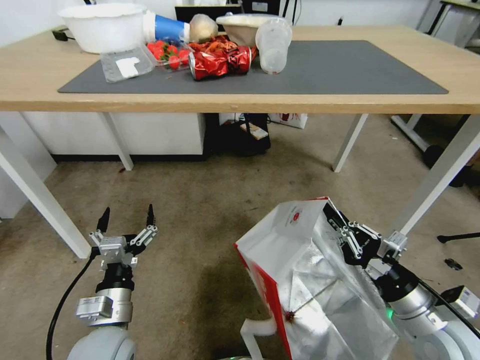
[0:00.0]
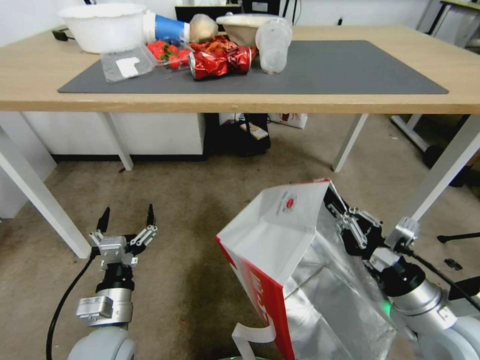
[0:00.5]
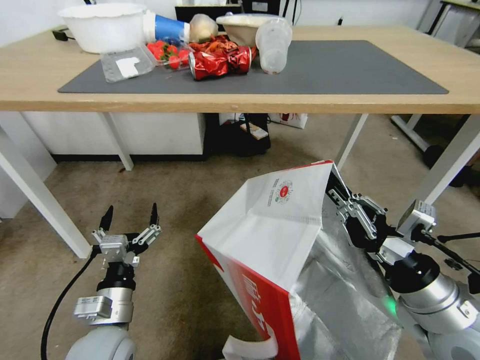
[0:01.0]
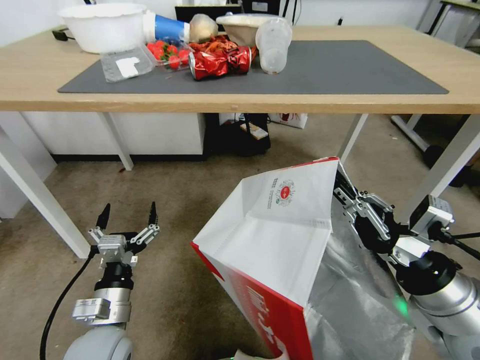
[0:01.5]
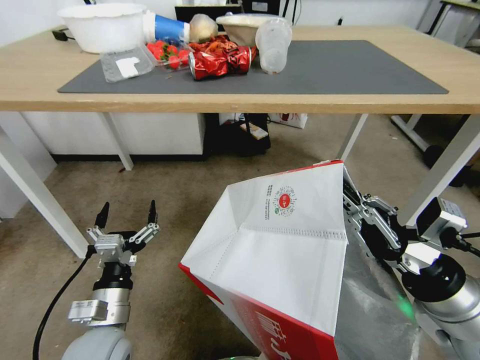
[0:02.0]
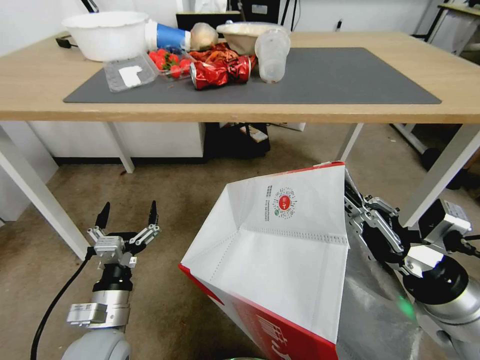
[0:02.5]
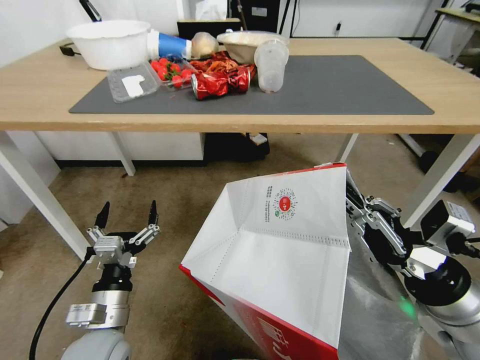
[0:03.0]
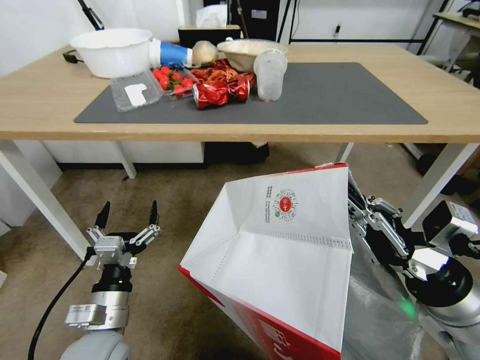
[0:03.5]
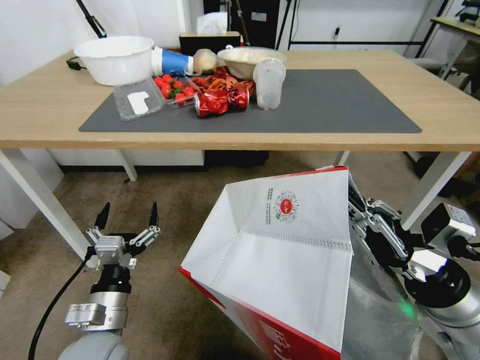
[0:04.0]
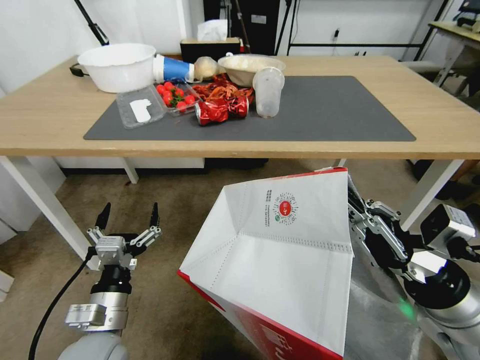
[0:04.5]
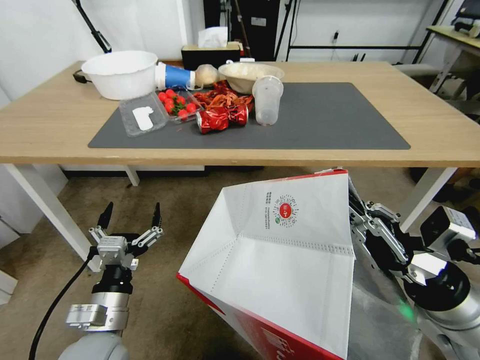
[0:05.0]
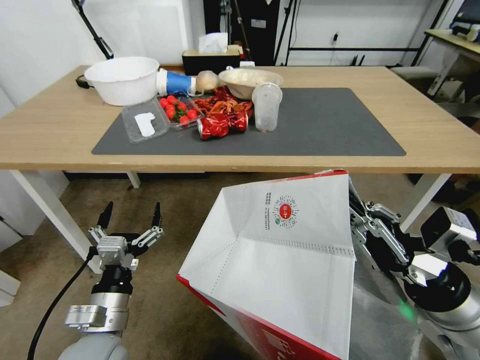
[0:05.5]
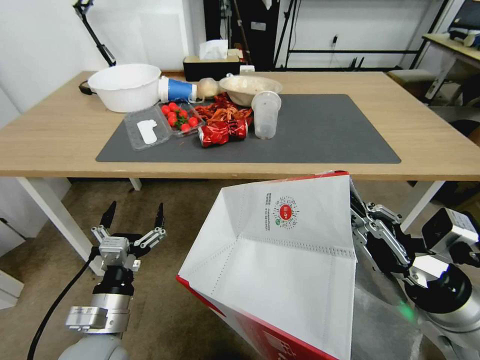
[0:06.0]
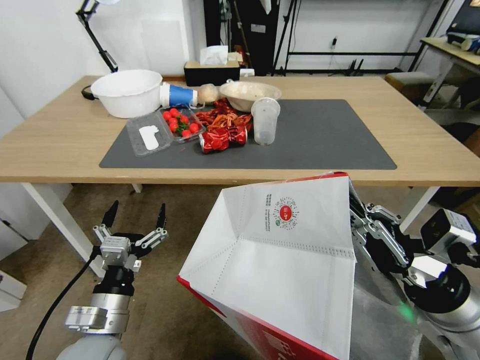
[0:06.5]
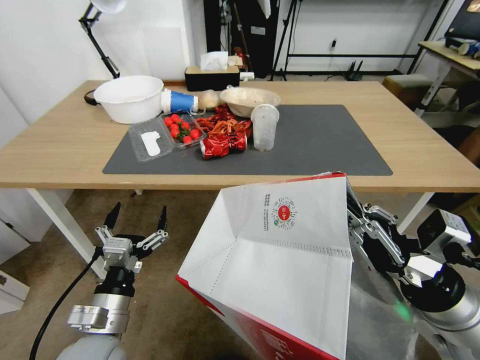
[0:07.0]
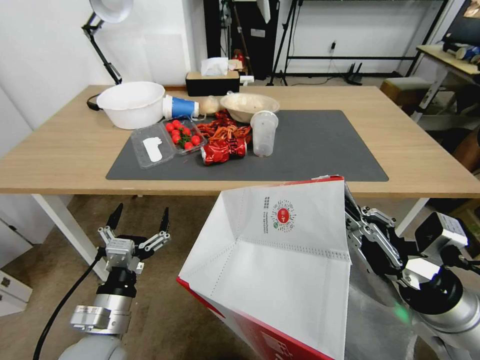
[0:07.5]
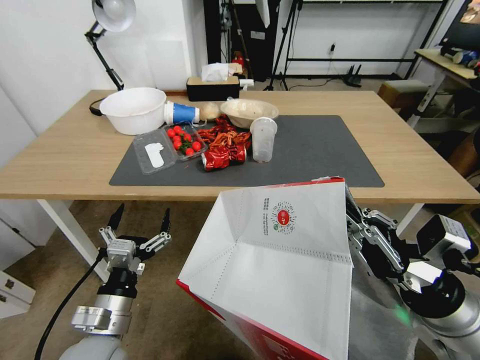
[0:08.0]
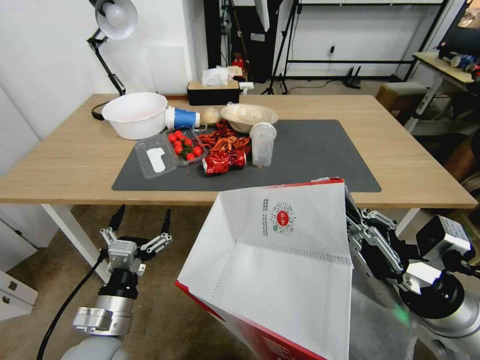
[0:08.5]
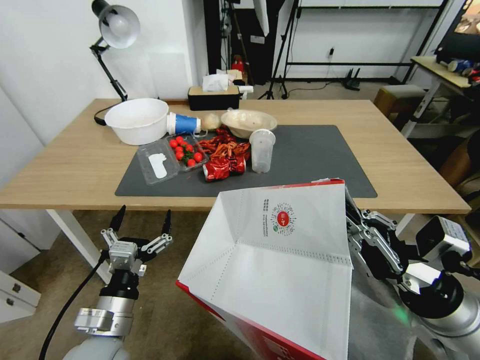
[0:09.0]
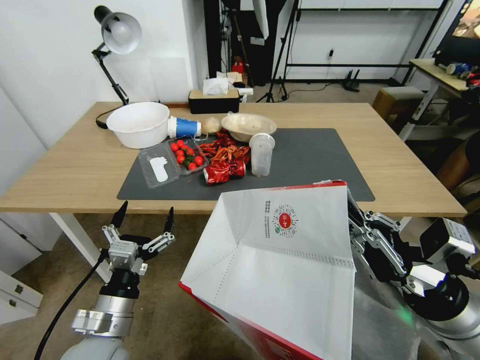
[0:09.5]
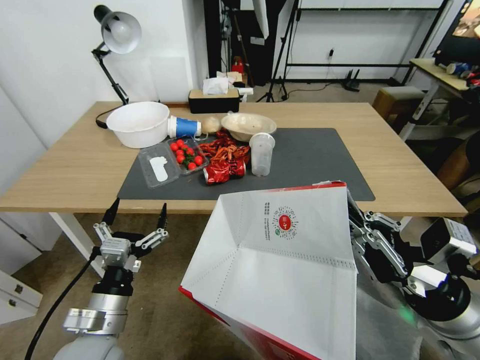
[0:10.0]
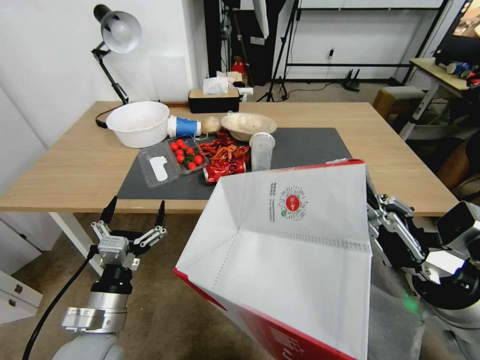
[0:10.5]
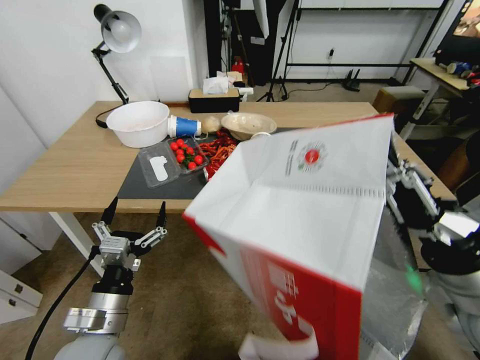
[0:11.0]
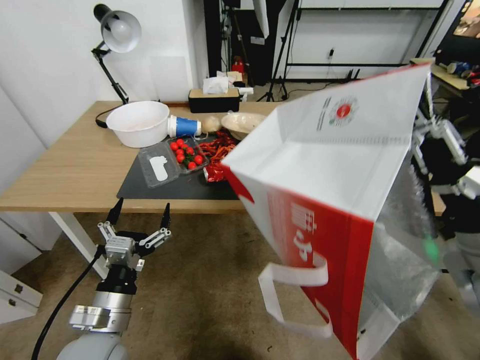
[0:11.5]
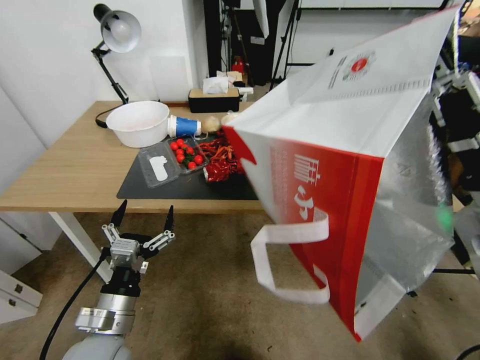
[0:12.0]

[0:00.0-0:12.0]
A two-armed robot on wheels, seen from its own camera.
Task of the whole recording: Pick up the food delivery bag from the floor and place it on the table.
0:00.0 to 0:02.0: The right gripper moves upward, about 10 cm.
0:10.0 to 0:12.0: The right gripper shifts some 15 cm upward and forward.

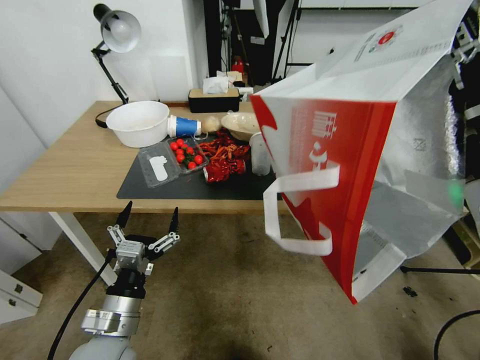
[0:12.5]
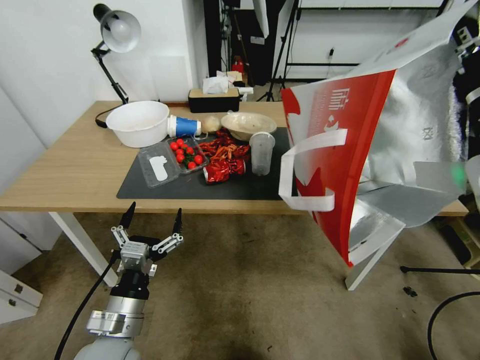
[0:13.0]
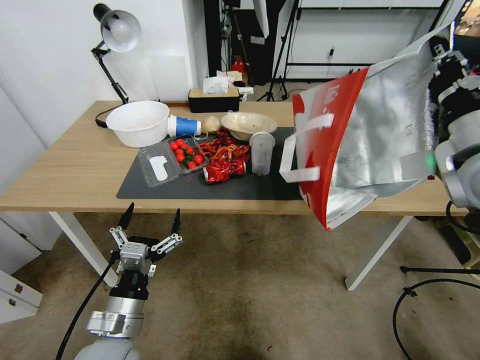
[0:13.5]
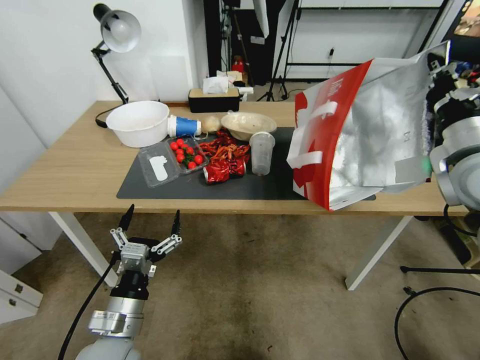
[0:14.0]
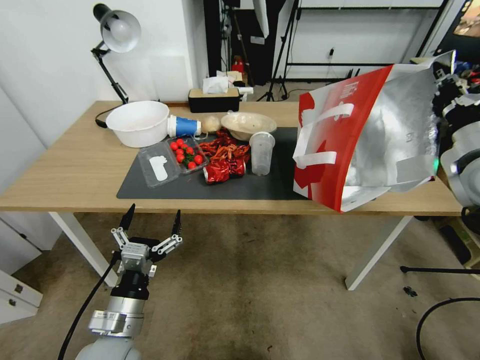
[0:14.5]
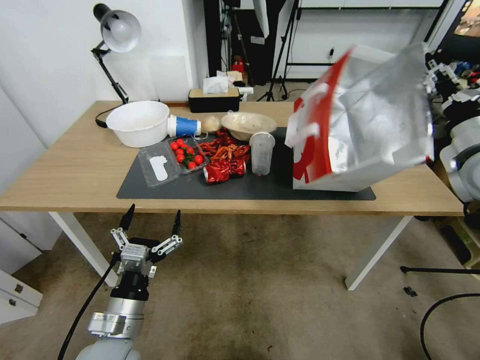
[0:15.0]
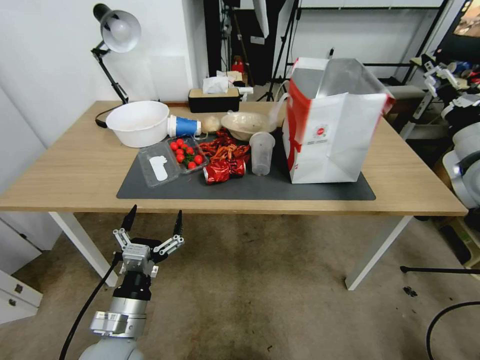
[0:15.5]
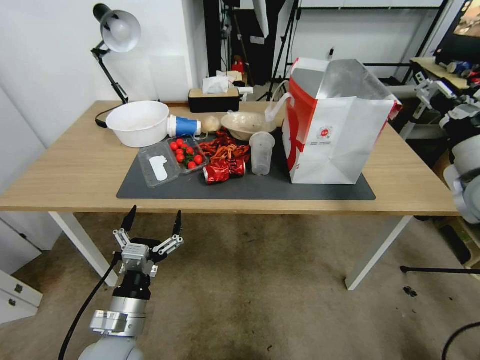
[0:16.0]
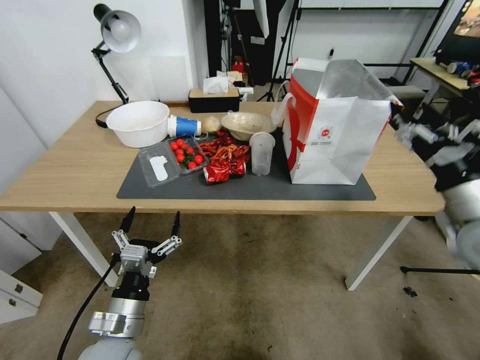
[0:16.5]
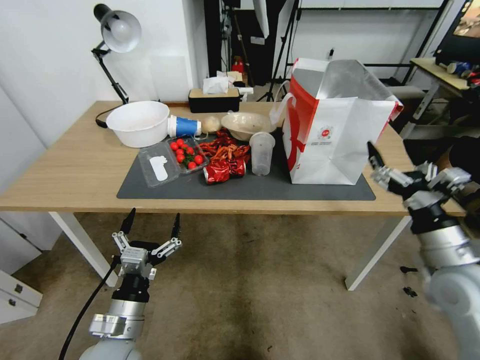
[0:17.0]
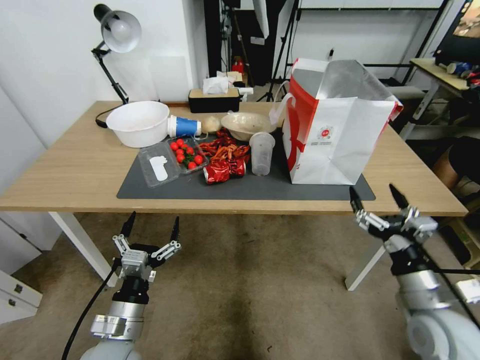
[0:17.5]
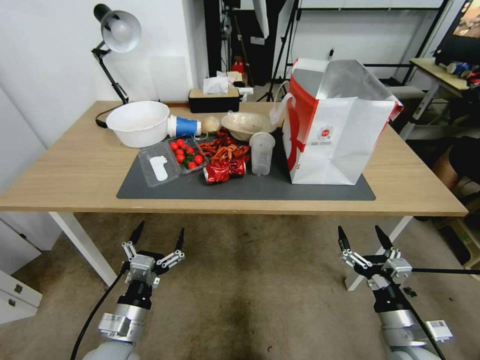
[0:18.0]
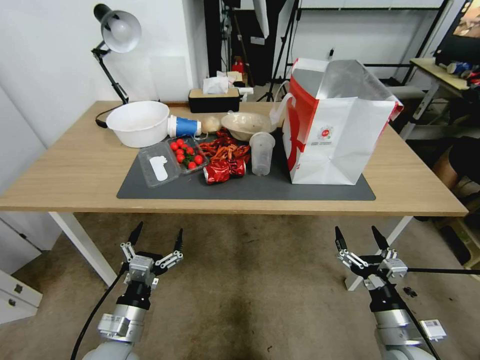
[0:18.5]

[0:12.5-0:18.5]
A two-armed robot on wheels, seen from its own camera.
Task of the whole recording: Pick up the food delivery bag from the floor and place it on the table.
0:12.5 to 0:14.5: The right gripper is displaced forward and to the right by about 15 cm.
0:14.5 to 0:16.5: The right gripper travels backward and downward by about 10 cm, and opens up.
0:16.5 to 0:18.5: The right gripper travels downward and backward by some 25 cm. Meanwhile the left gripper ends up about 5 cm from where it was.

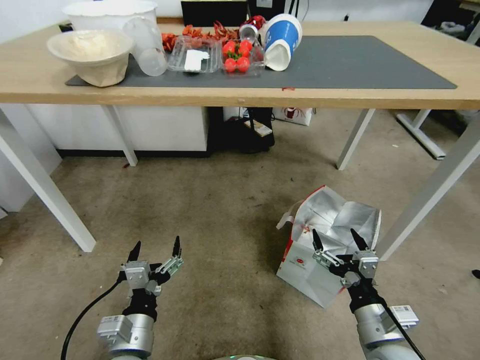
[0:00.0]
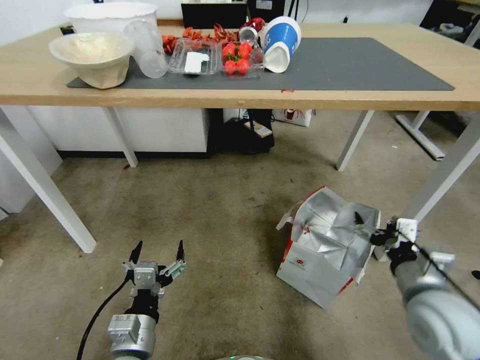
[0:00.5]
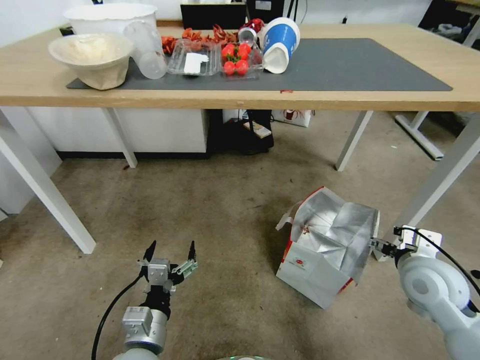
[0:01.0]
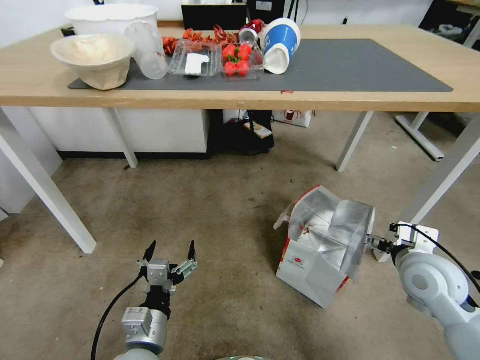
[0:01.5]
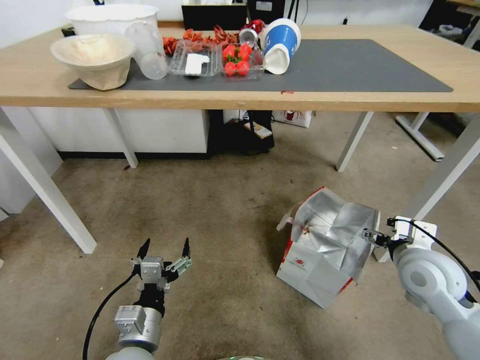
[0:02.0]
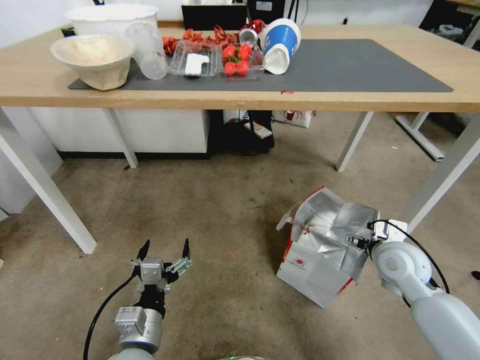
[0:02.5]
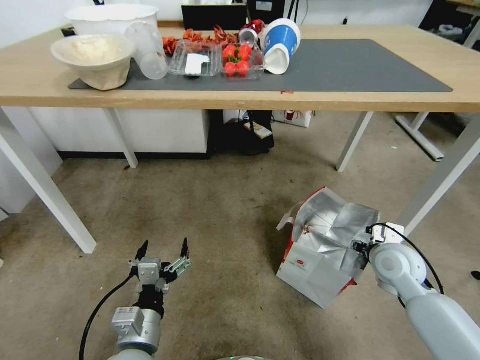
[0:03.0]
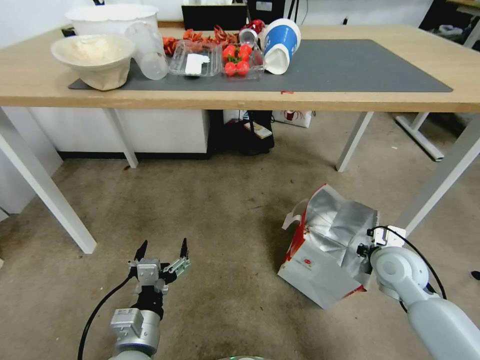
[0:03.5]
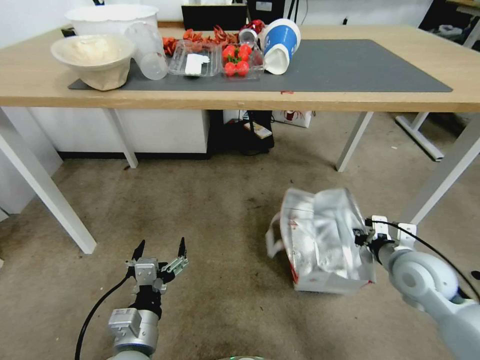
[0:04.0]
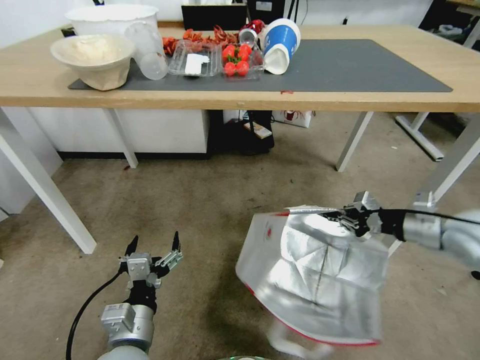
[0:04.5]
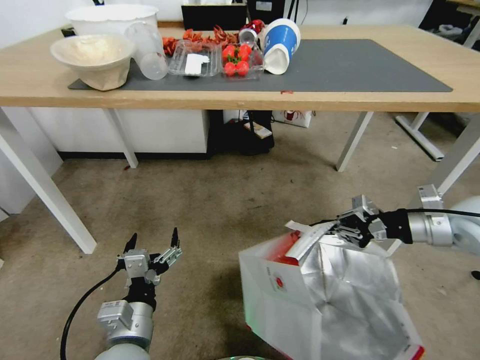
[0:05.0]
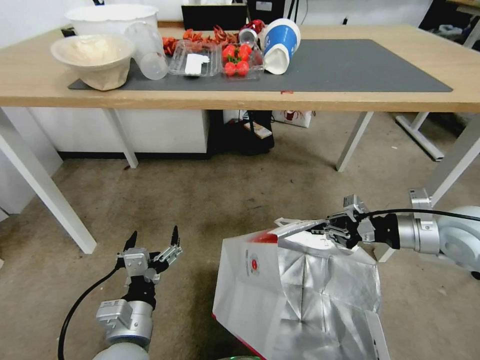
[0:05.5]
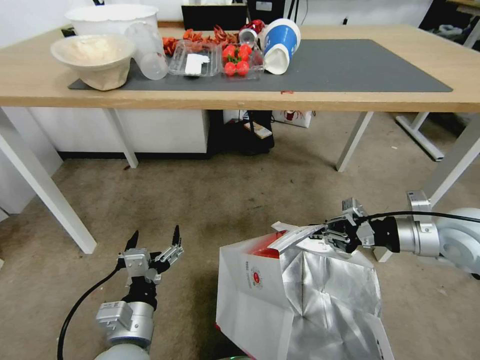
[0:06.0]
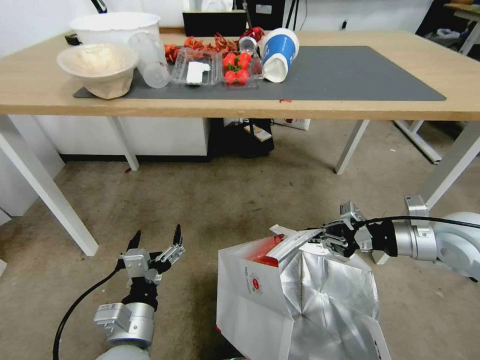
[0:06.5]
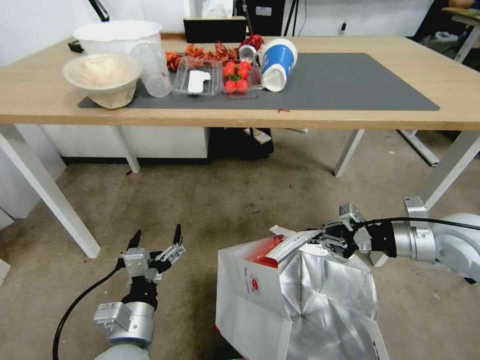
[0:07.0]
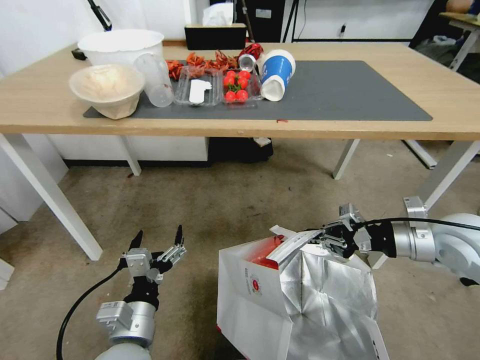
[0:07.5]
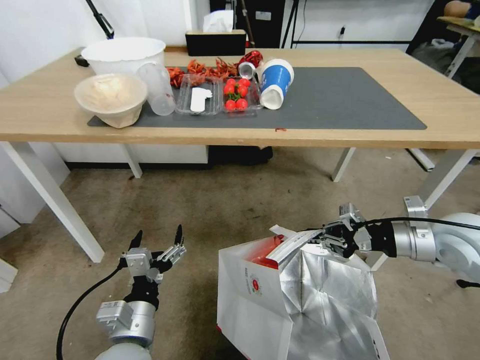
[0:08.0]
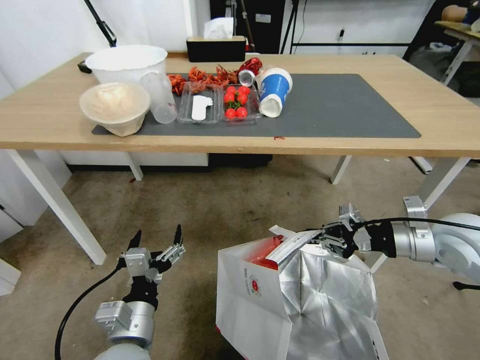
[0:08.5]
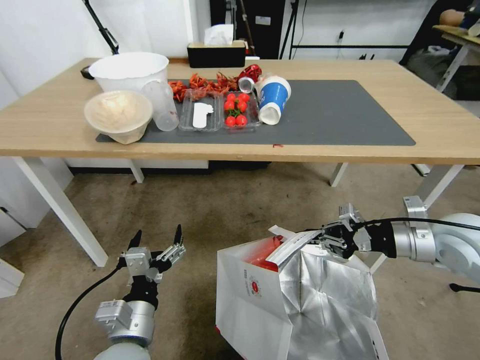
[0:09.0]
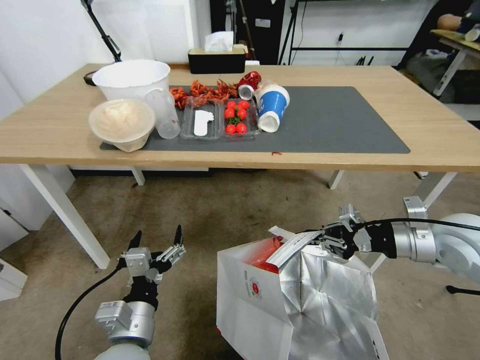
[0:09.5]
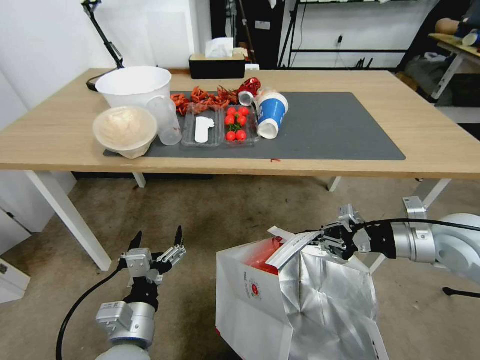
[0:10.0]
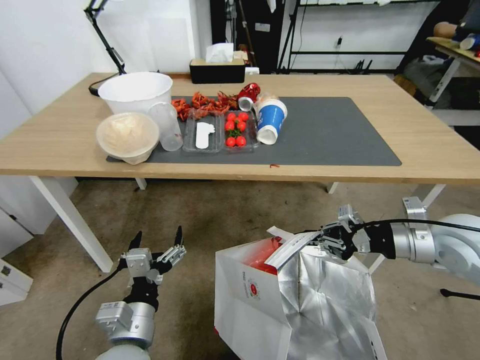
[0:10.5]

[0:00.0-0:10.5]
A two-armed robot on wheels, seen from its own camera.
Task of the whole recording: Pick up the food delivery bag from the floor and place it on the table.
0:00.0 to 0:02.0: The right gripper heads forward, to the right and upward, covering about 20 cm.
0:02.0 to 0:04.0: The right gripper closes its fingers.
0:04.0 to 0:06.5: The right gripper heads upward, covering about 10 cm.
